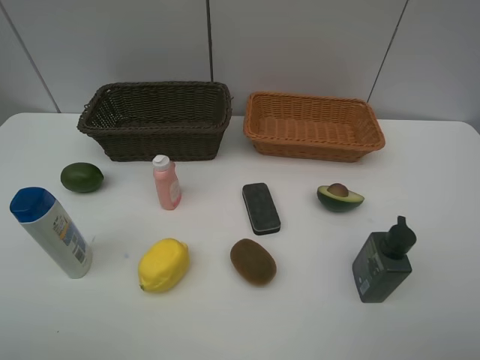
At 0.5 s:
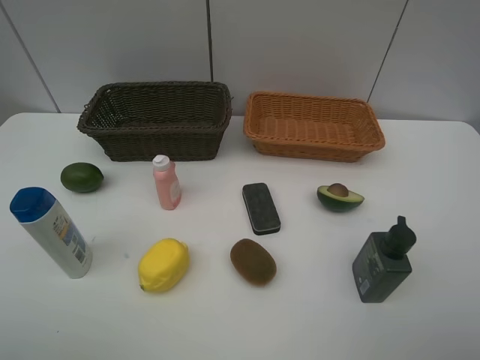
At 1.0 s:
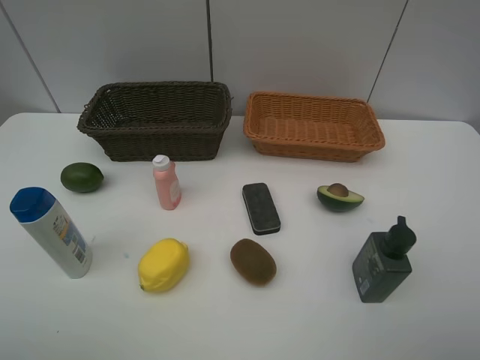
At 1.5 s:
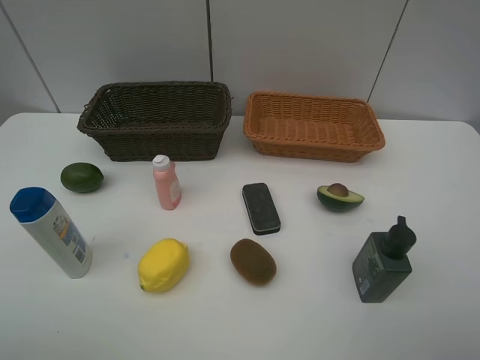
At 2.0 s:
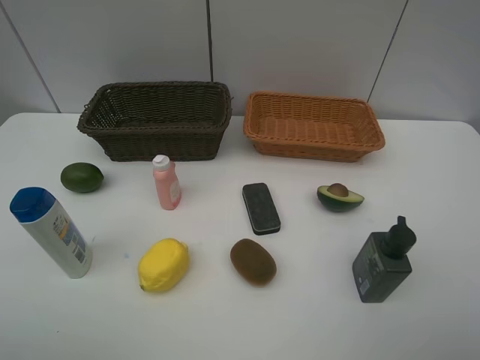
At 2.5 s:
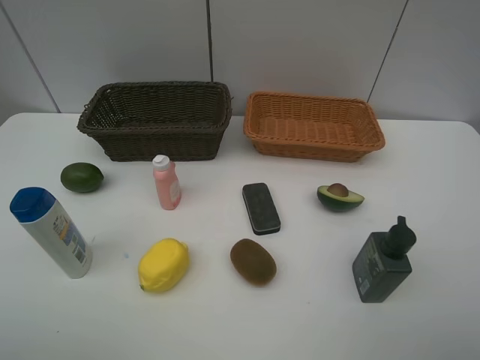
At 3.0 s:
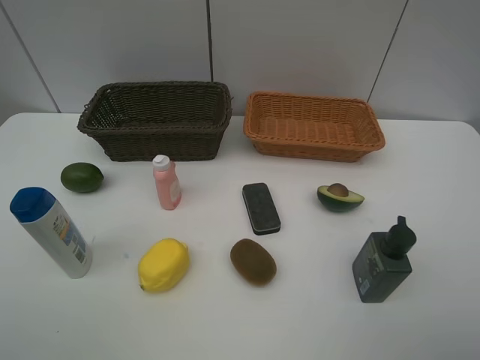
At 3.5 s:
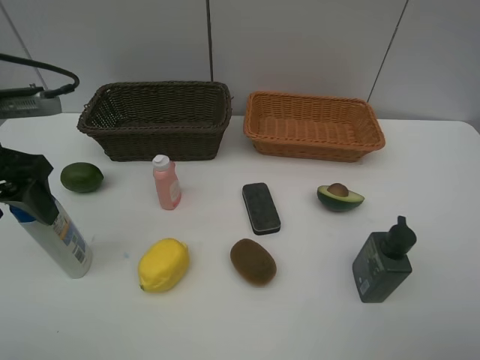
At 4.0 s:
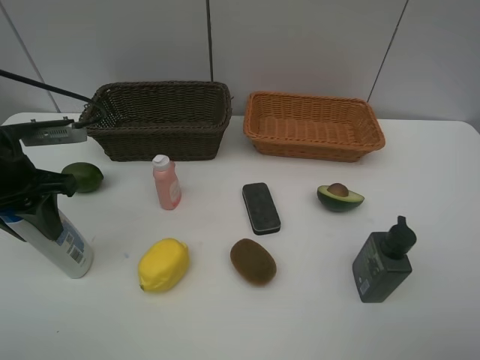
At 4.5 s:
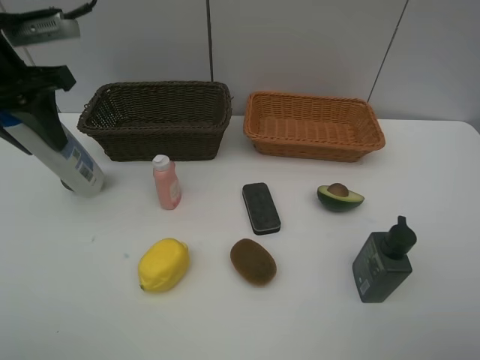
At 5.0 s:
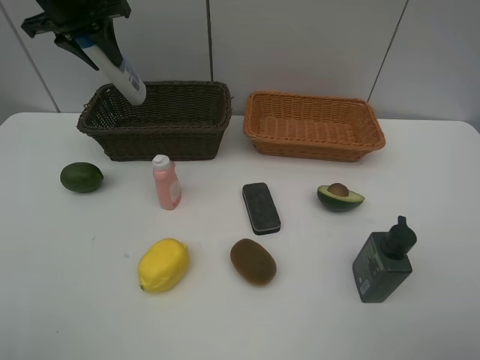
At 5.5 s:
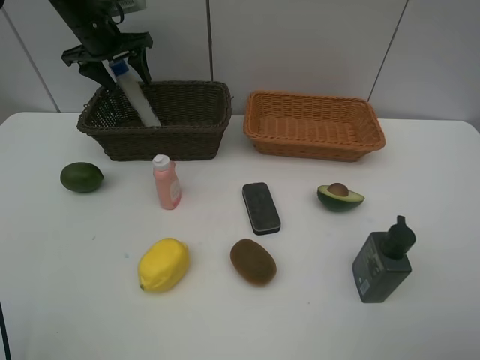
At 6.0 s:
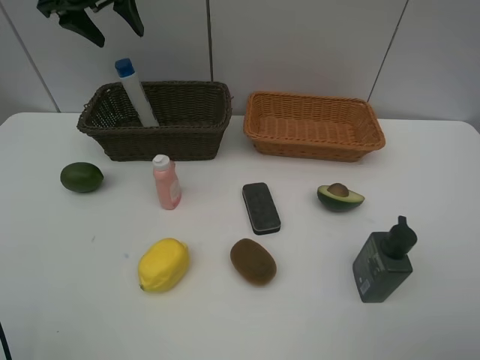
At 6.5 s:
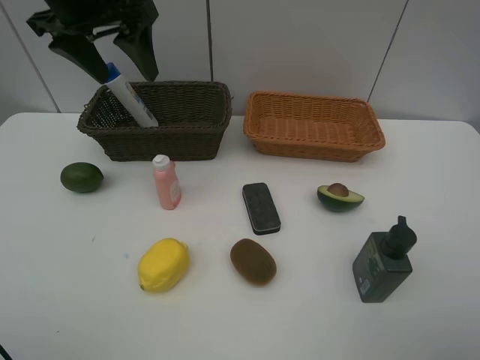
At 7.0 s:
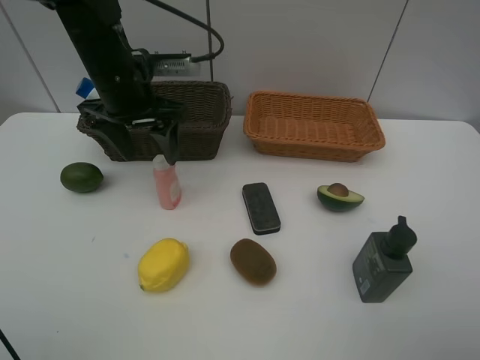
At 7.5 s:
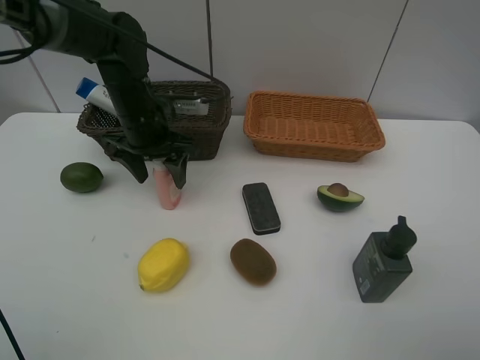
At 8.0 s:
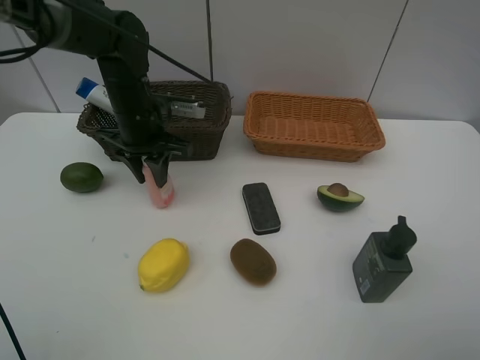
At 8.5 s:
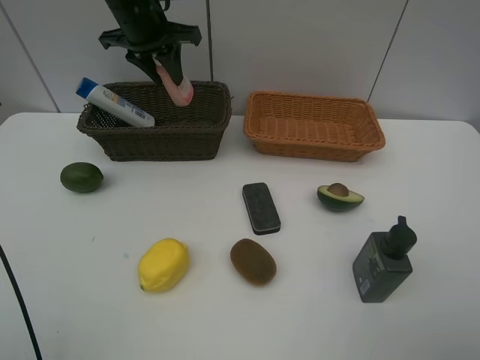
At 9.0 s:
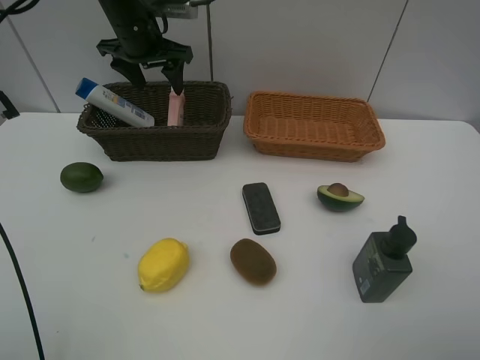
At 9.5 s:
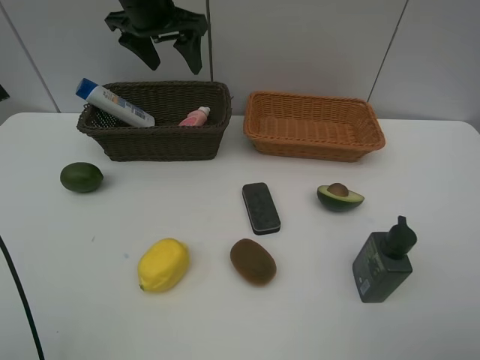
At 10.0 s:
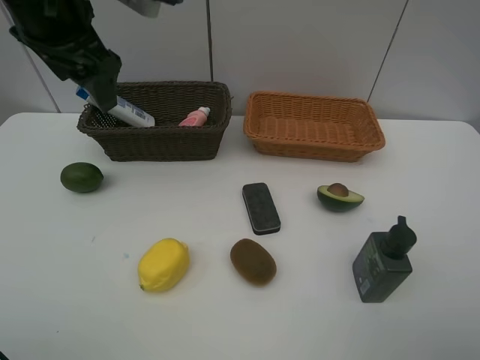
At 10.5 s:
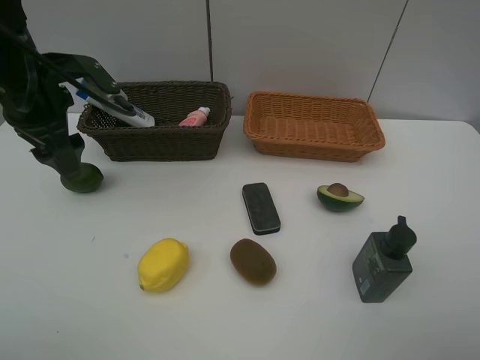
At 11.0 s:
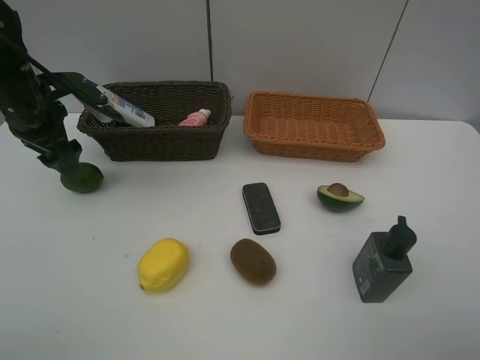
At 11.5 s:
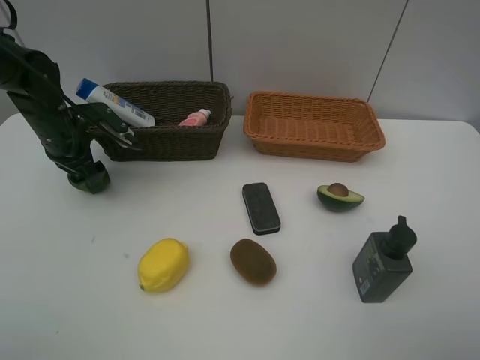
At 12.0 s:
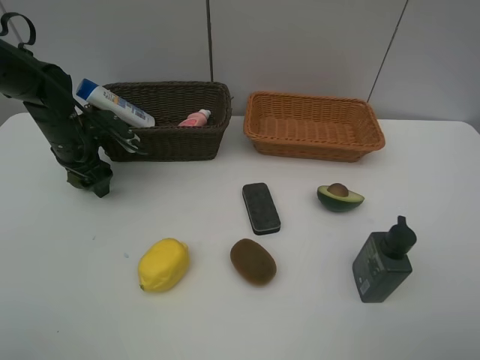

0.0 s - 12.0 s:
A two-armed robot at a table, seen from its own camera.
Task of the whole recording: Place multiple objects separately in different baskets.
Step, 0.0 s - 4.0 s: Pick up the shampoo with left gripper.
Step, 4.5 s - 5.5 s: Place the shampoo in the dark basket with left gripper.
Step, 6.0 s - 8.0 s: Pick up the laundry detergent with left gripper.
0.0 s - 2.0 s: The two grippers keep their place.
2.0 s - 4.0 s: The left gripper is displaced forward and downward by some 25 cm, and closes its fingers.
4.0 s - 6.0 s: The left gripper shifts approximately 30 cm forward and upward, and opens.
6.0 s - 8.0 s: The left gripper travels downward, backward and to the right by some 20 cm, and closes its fingers.
8.0 s - 10.0 s: The left gripper is displaced upward and backward by roughly 15 cm, and opens up.
10.0 s - 12.0 s: The left gripper shifts about 25 cm downward.

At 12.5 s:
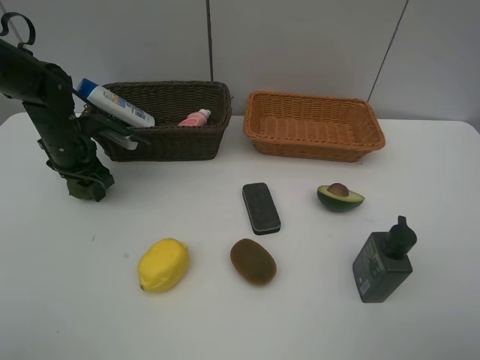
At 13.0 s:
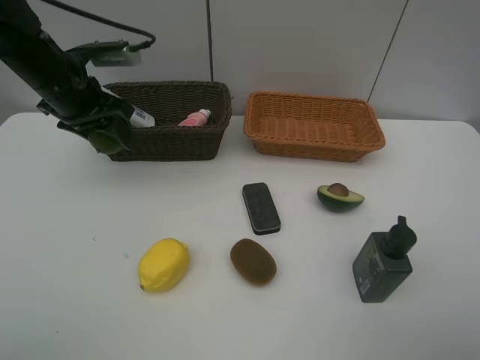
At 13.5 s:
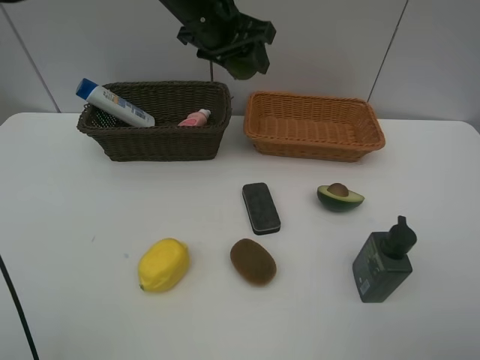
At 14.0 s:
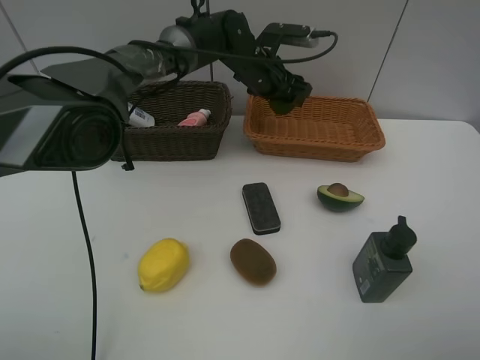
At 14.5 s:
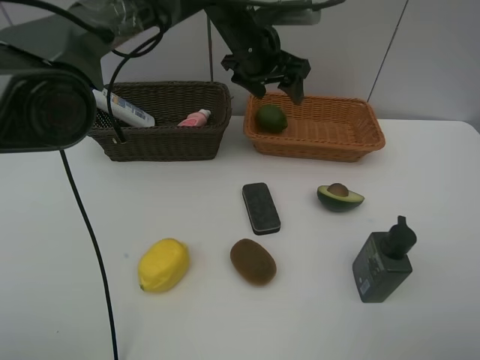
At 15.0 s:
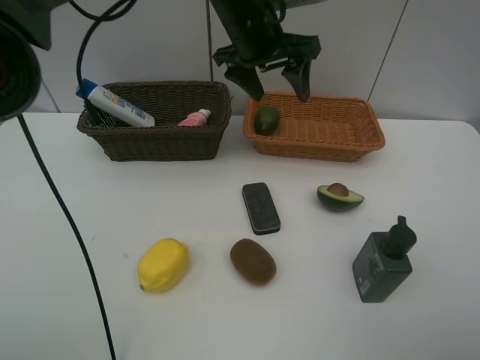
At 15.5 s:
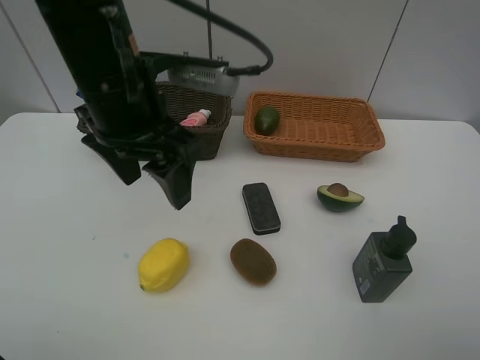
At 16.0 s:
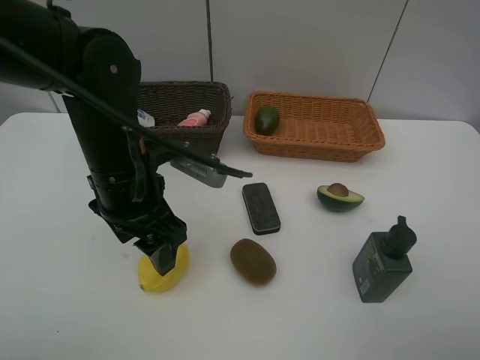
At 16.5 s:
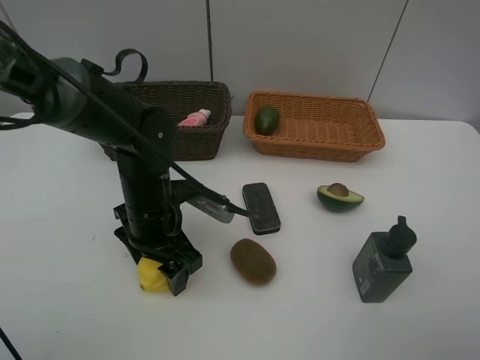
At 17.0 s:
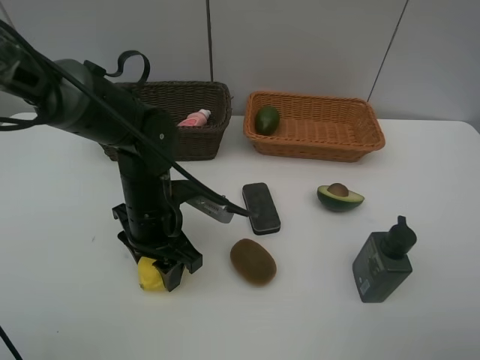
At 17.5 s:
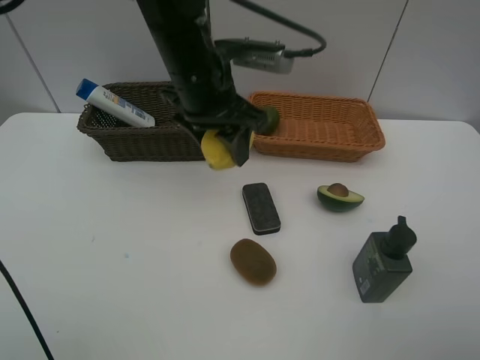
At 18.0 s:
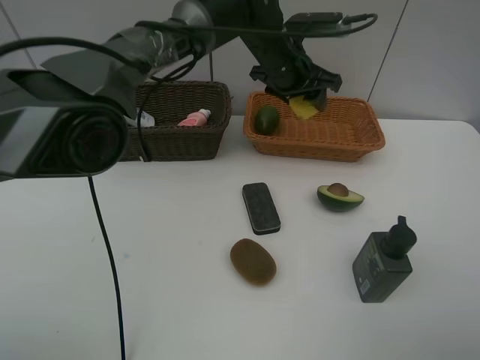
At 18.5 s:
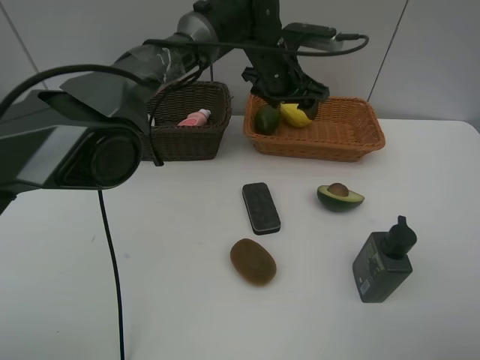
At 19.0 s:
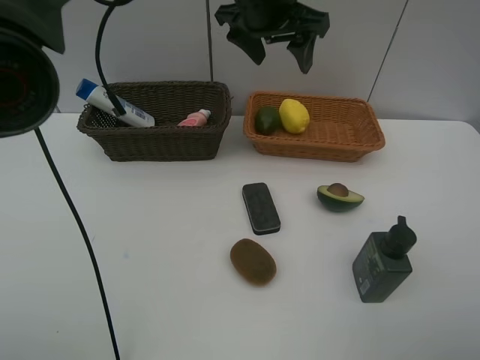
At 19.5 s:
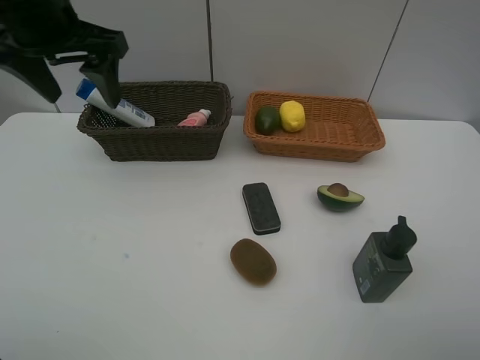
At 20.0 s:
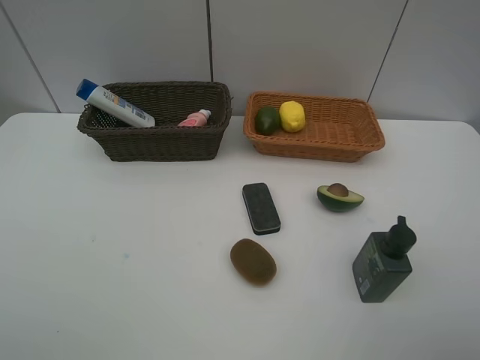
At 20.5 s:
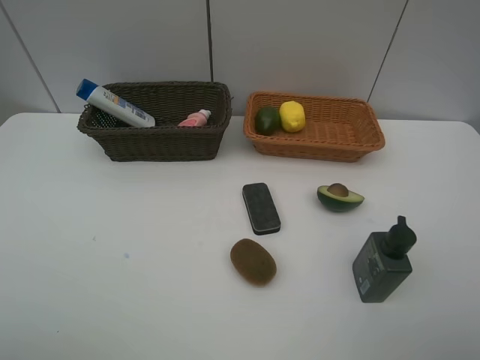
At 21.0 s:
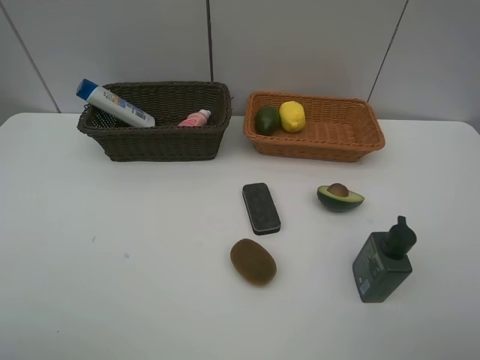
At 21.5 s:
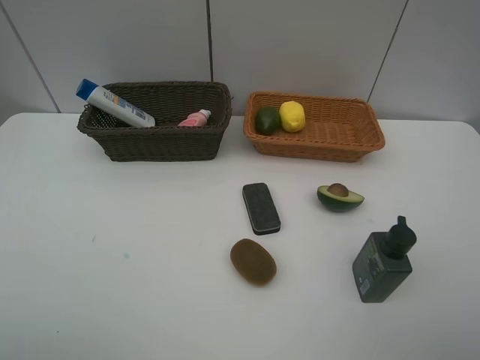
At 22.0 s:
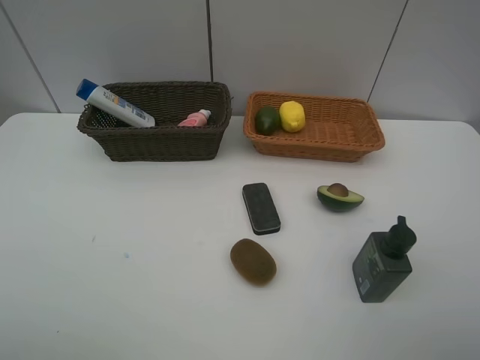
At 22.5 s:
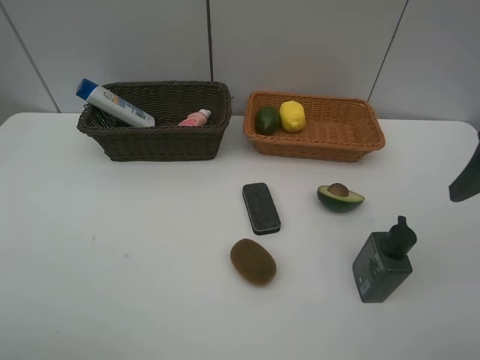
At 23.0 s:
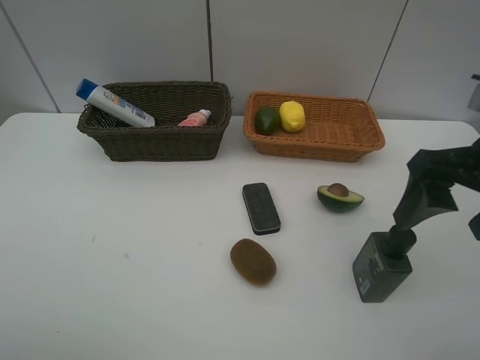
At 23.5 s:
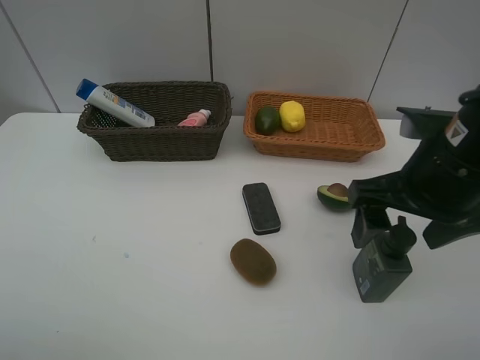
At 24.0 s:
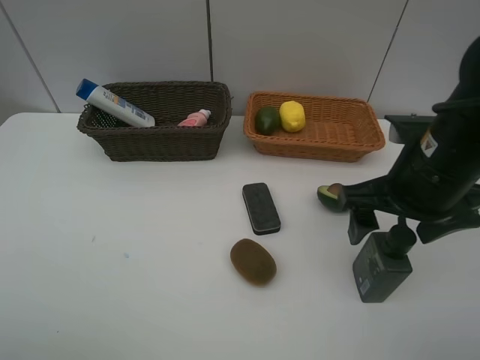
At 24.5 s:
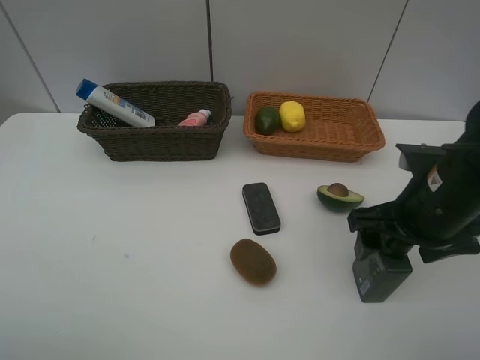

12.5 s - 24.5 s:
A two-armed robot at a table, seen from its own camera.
Task of the whole recording: Place multiple objects separately in different baskets.
Step, 13.0 s - 14.0 s: Place the lime in the light basket with left gripper.
Step, 14.5 s - 17.0 s: Pick up the lemon with left gripper.
Step, 17.5 s - 18.0 s: Place the lemon in the light basket with left gripper.
12.5 s - 14.5 s: The left gripper moves to the right and upward, some 30 cm, and opens its fingers.
14.5 s - 16.5 s: The left gripper is displaced backward, downward and to the left by about 25 cm.
16.5 s - 18.5 s: The left gripper moves forward, to the right and upward, roughly 30 cm, and closes, then reopens.
18.5 s - 20.5 s: The left gripper shifts about 60 cm backward and to the left.
22.5 s - 24.5 s: The right gripper shifts some 15 cm downward and to the left.

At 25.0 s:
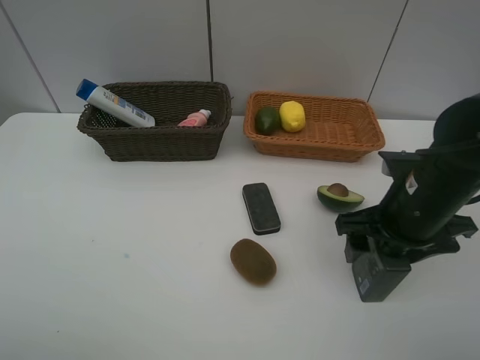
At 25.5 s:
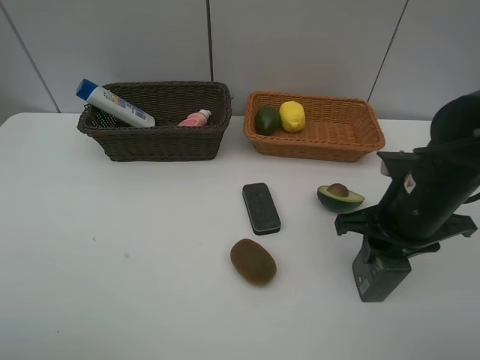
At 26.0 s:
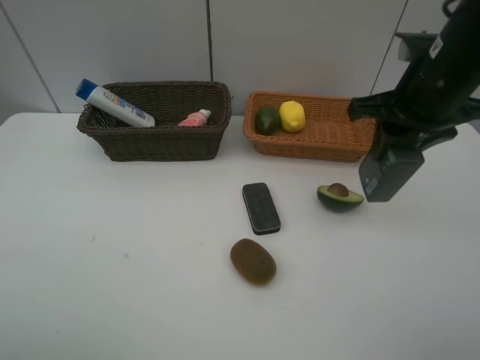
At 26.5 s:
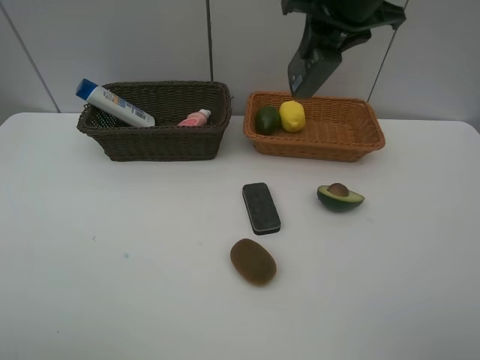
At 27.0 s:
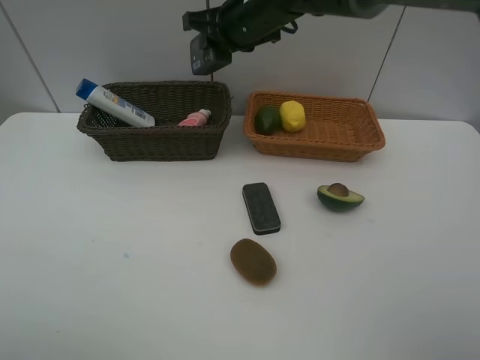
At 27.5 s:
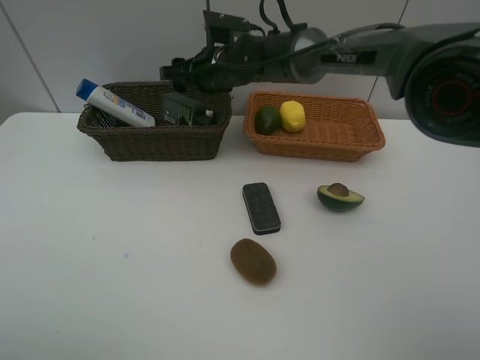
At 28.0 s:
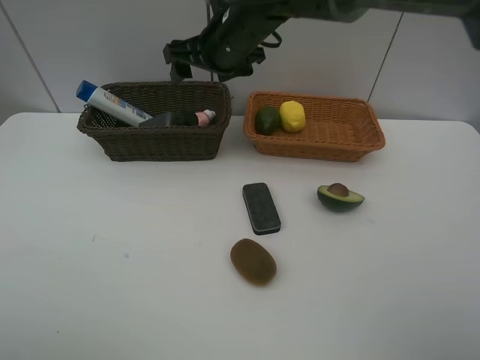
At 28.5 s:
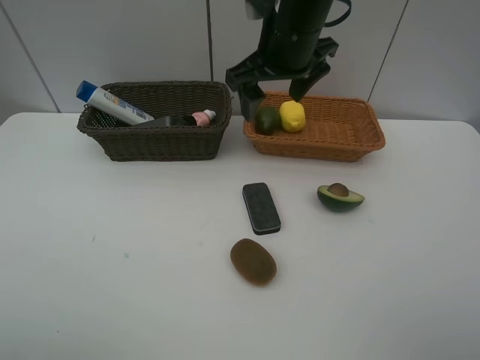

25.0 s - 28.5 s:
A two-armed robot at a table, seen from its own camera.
Task of the whole recording: Place multiple objects separately in different baskets.
Step, 26.0 s - 27.5 s: Place the hard facial cleanser in the dark basket with right gripper.
25.0 s - 27.0 s: The right gripper moves forward, to the left and upward, roughly 30 cm, and closes.
27.0 s - 28.5 s: The right gripper is displaced backward and to the right by roughly 10 cm, goes downward and returns, about 5 cm each way, and opens its fingers.
